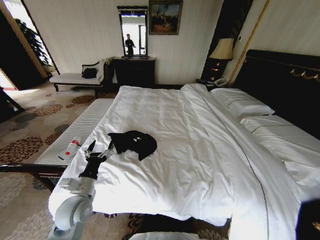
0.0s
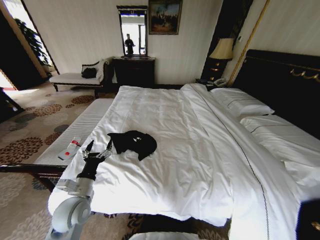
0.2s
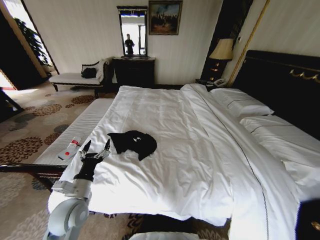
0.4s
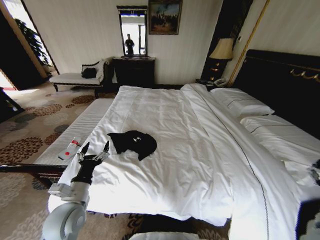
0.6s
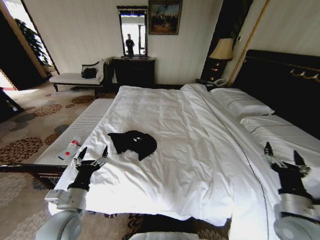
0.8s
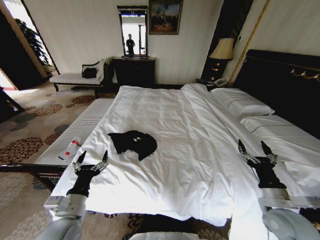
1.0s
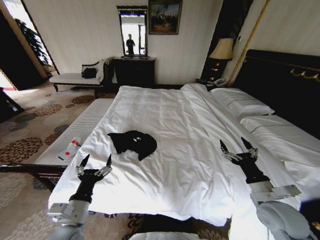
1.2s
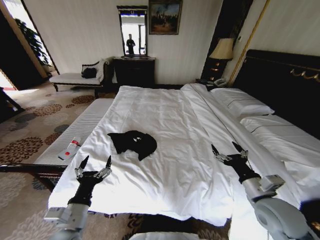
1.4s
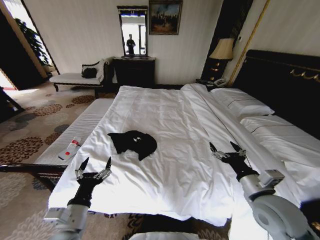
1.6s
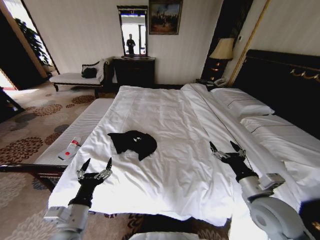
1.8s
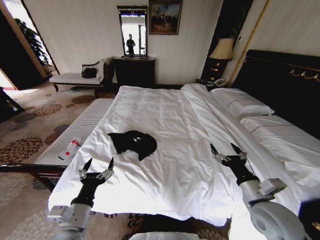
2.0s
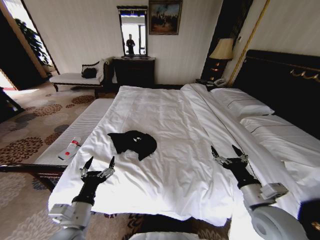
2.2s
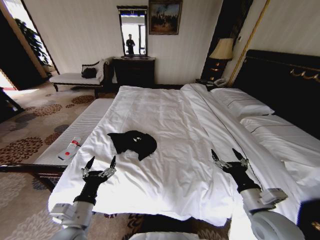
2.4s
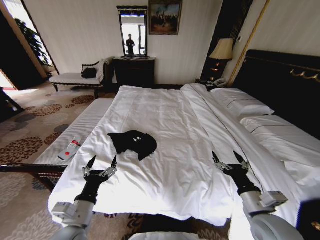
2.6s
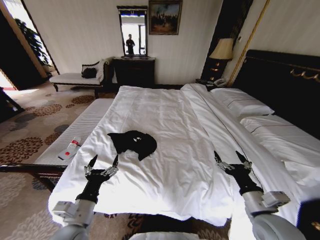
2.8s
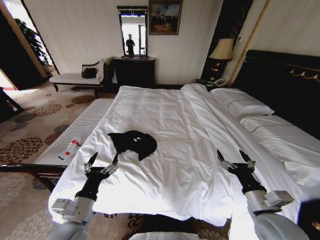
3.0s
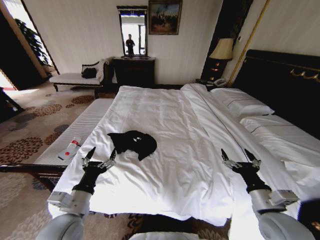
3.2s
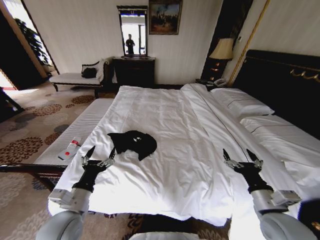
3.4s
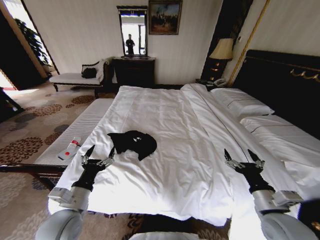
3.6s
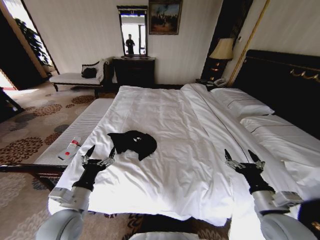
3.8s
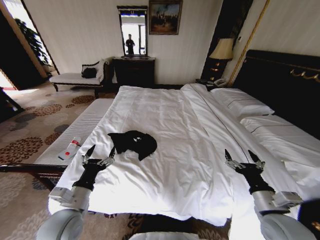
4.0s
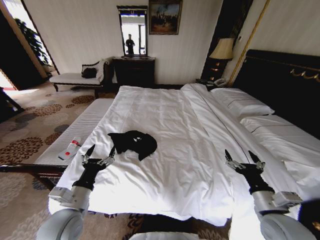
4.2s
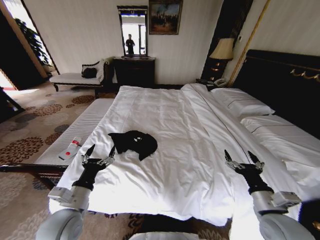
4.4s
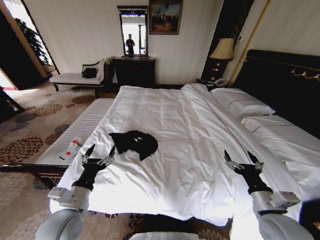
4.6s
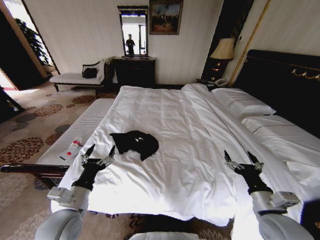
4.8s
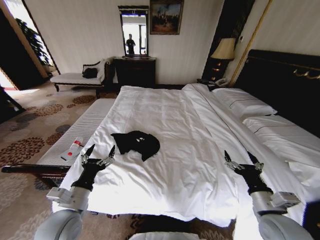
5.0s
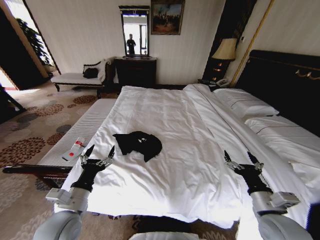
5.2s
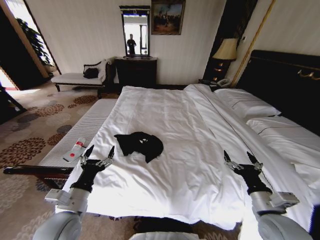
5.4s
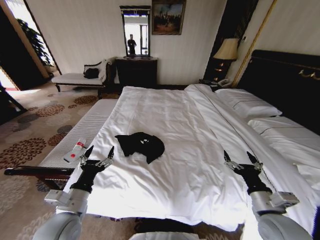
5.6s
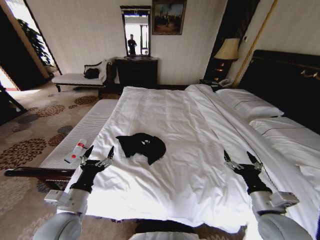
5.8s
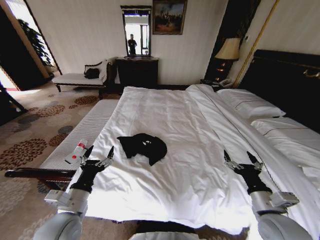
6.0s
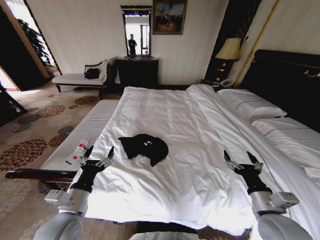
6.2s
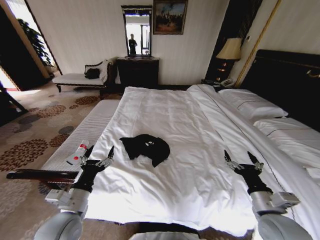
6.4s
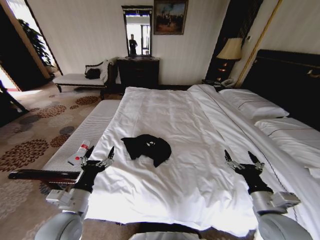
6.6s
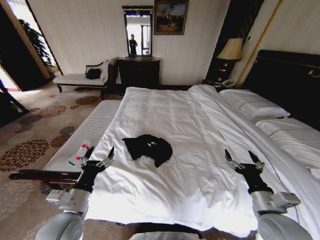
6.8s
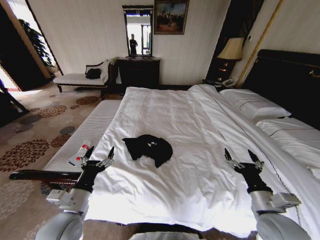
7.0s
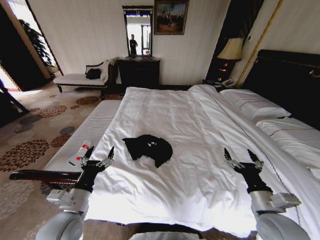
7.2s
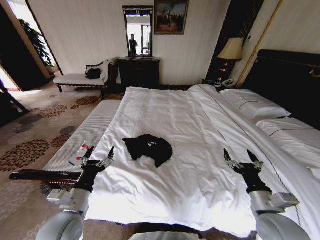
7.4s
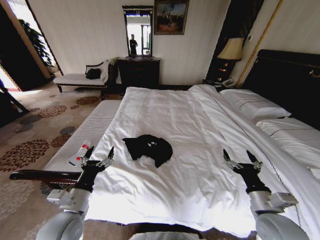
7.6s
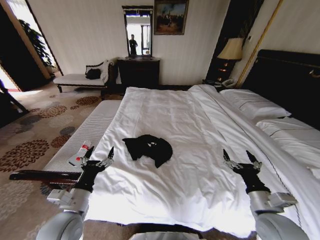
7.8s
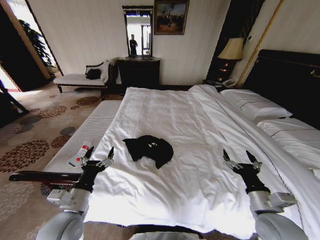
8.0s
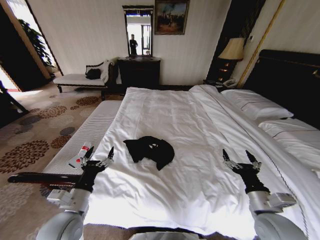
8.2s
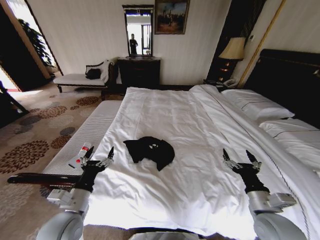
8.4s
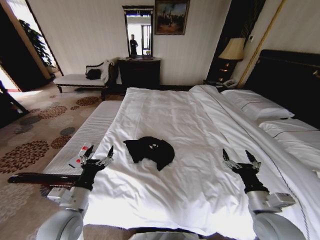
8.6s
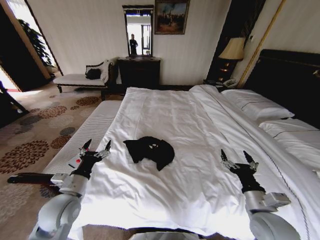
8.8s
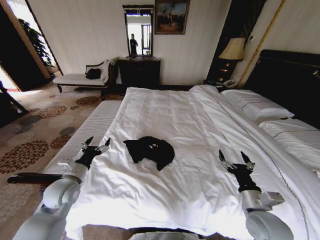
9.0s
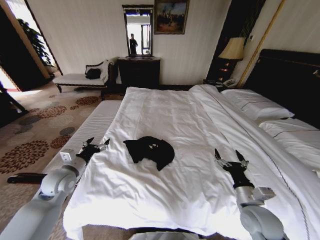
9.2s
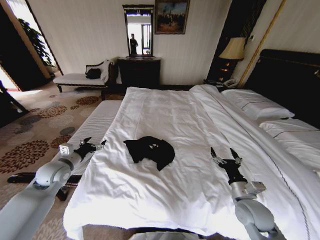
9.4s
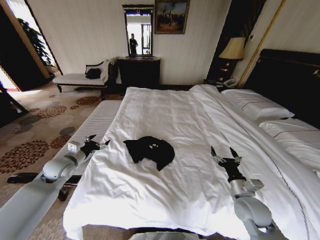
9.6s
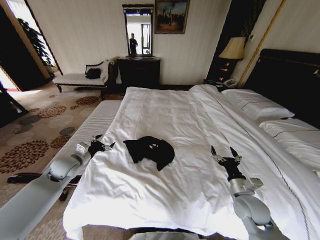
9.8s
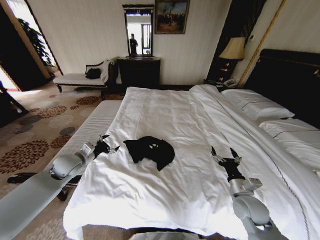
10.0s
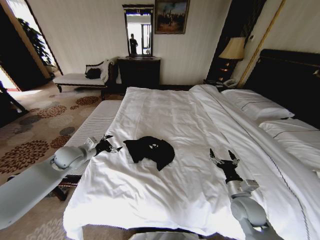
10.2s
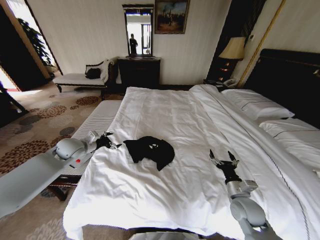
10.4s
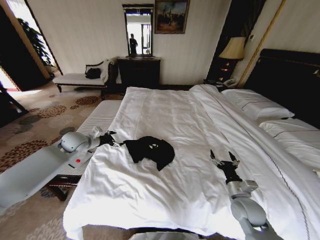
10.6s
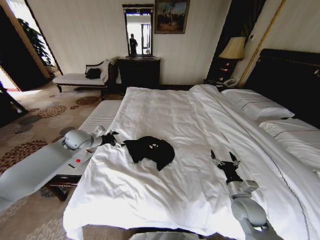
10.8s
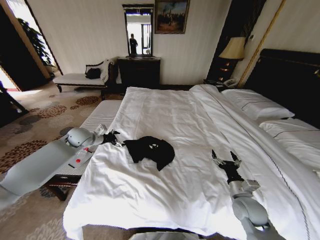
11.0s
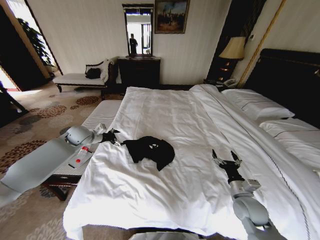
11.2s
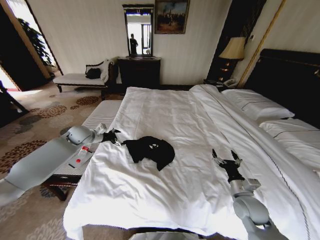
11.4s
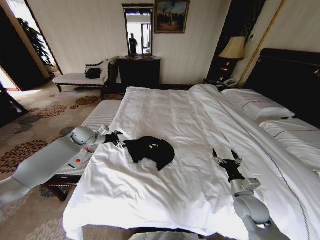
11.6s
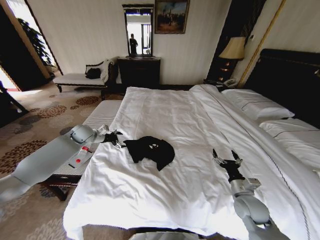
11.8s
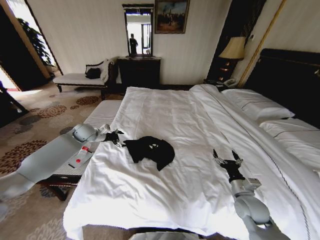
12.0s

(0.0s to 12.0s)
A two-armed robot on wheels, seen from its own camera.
Task of the whole recording: Fold the clothes on the bed.
0.0s - 1.6s: The left gripper travels backward by approximately 10 cm, while the right gripper goes up and down, some 20 cm each way, reversing 2 times, and opens up.
1.6s - 3.0s: The right gripper ends up about 5 cm from where it was.
3.0s - 4.4s: There are only small adjustments of the grippers.
6.0s - 7.6s: Neither gripper changes place.
7.6s - 9.0s: The left gripper shifts some 10 cm forward and to the left.
9.0s - 10.4s: The right gripper heads forward and downward, covering approximately 10 cm. Meanwhile the left gripper is displaced forward by roughly 15 cm.
10.4s - 12.0s: The left gripper shifts approximately 10 cm forward.

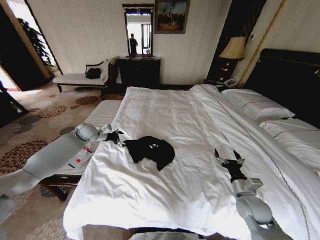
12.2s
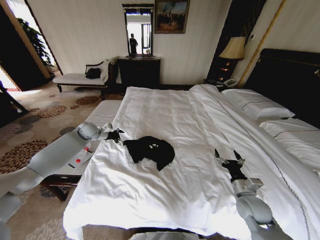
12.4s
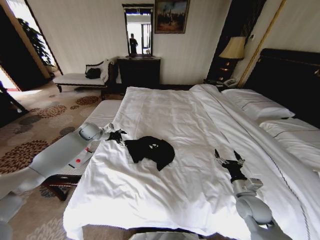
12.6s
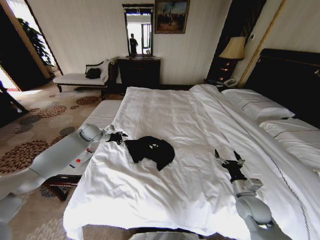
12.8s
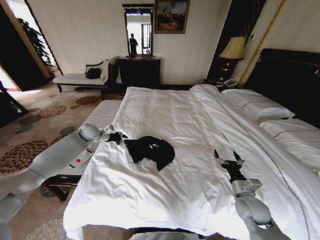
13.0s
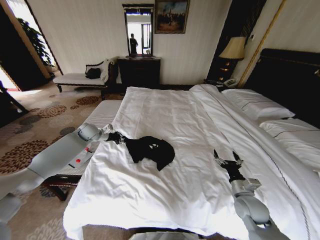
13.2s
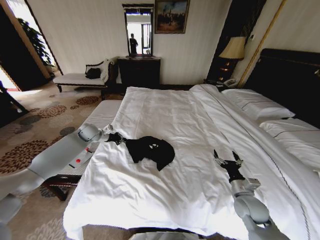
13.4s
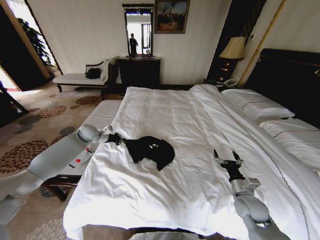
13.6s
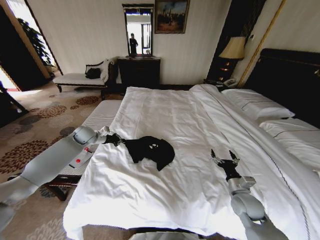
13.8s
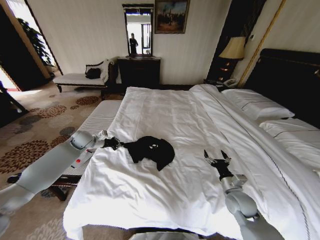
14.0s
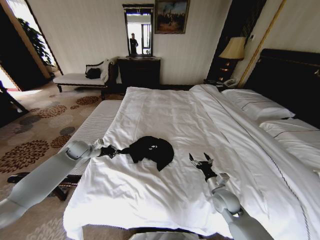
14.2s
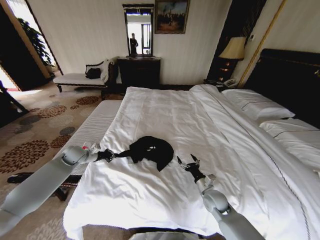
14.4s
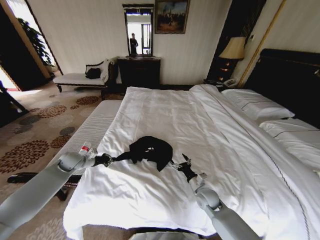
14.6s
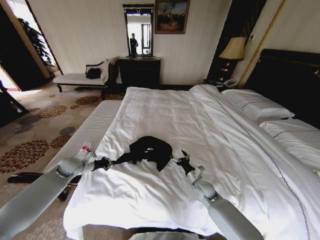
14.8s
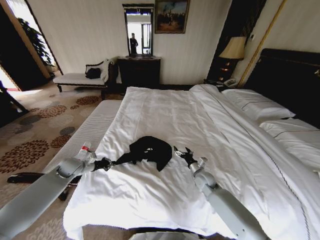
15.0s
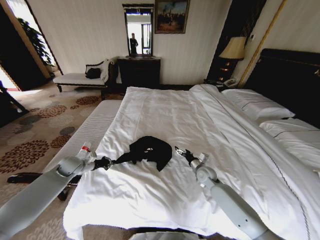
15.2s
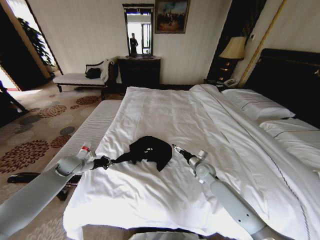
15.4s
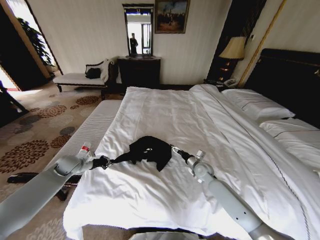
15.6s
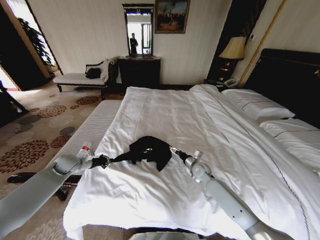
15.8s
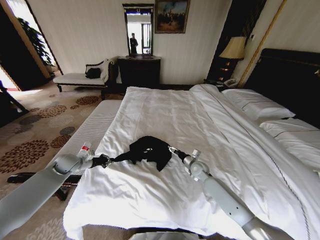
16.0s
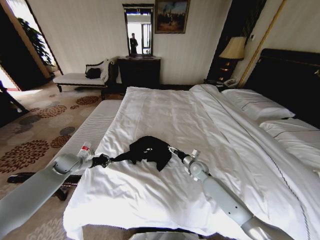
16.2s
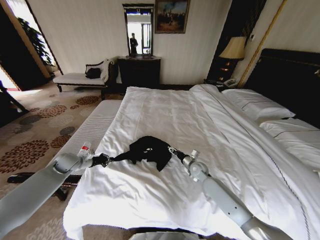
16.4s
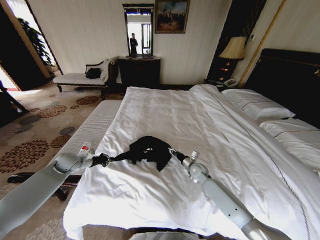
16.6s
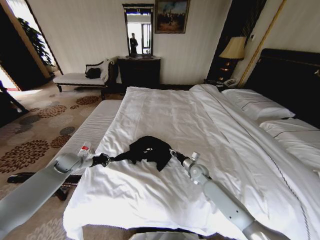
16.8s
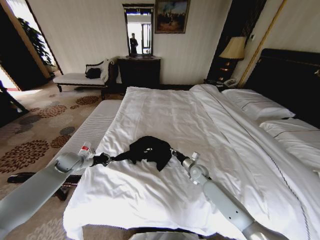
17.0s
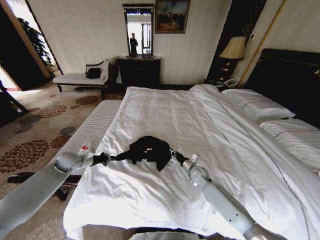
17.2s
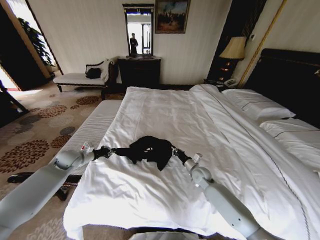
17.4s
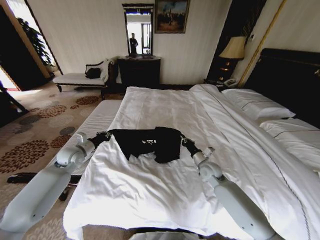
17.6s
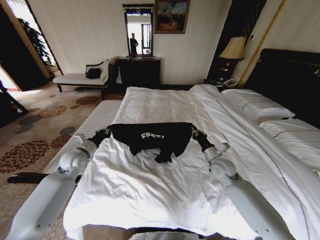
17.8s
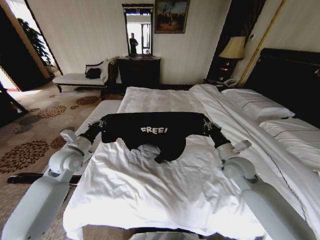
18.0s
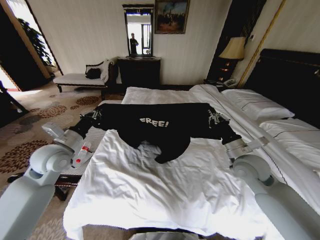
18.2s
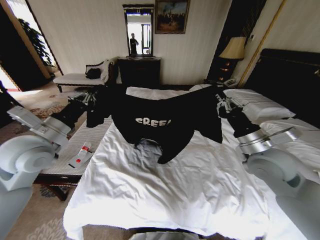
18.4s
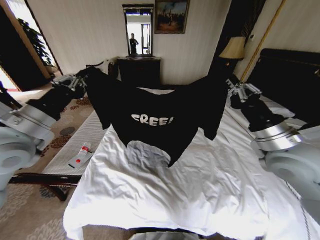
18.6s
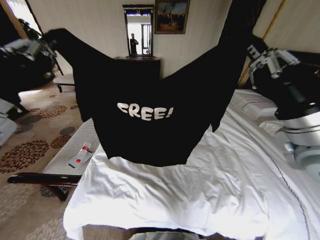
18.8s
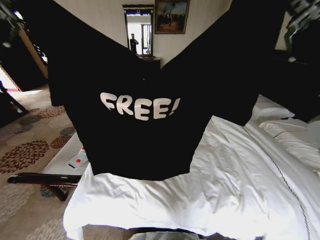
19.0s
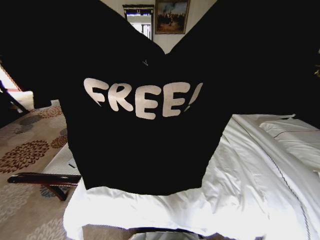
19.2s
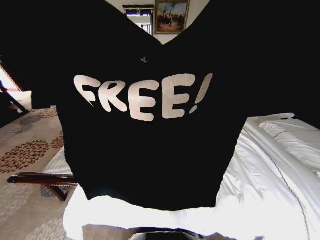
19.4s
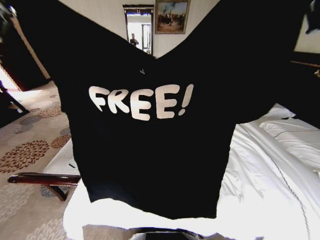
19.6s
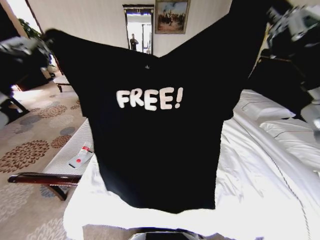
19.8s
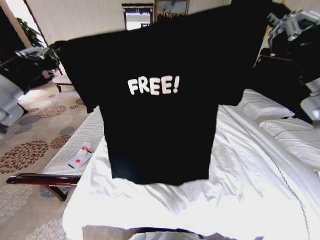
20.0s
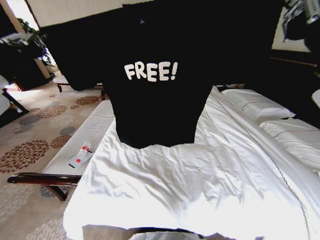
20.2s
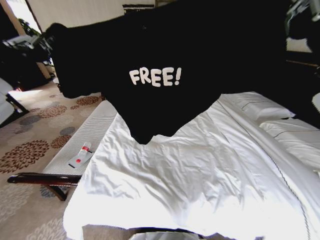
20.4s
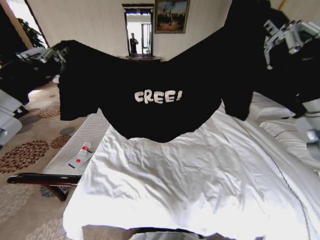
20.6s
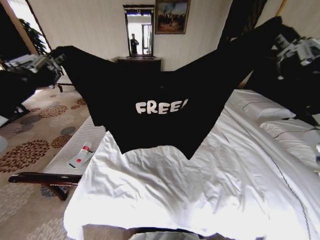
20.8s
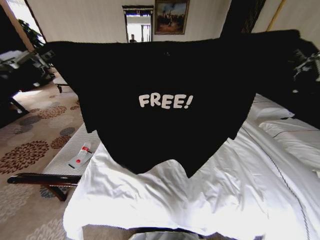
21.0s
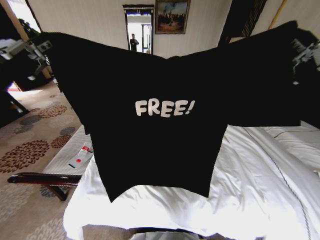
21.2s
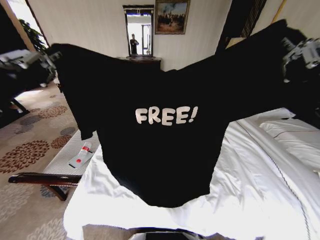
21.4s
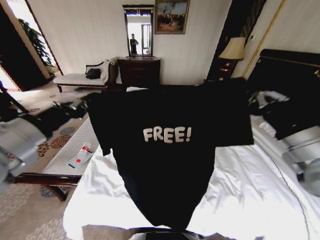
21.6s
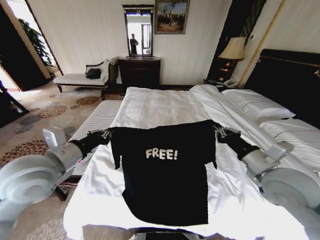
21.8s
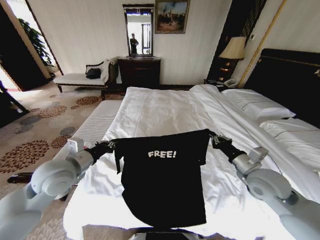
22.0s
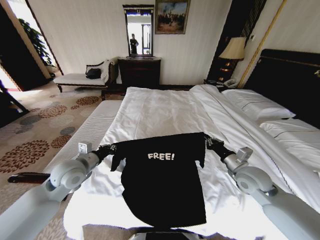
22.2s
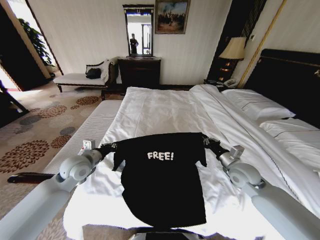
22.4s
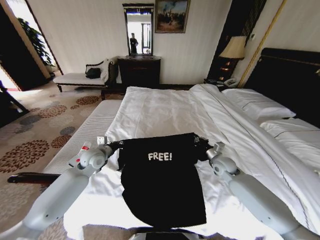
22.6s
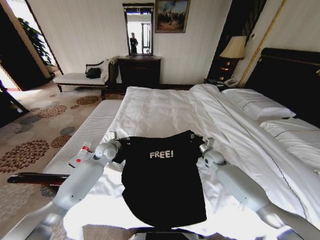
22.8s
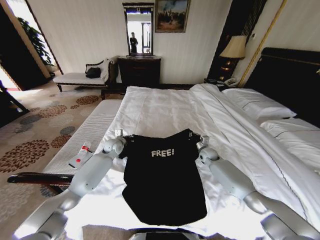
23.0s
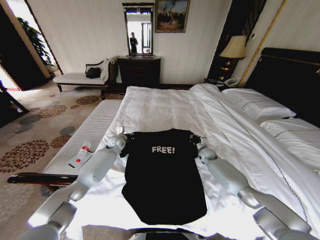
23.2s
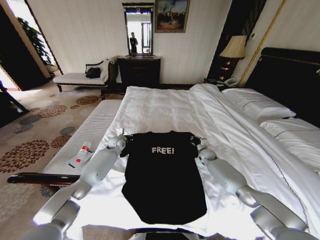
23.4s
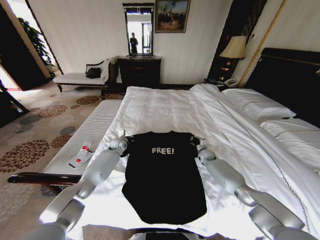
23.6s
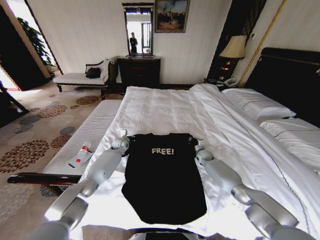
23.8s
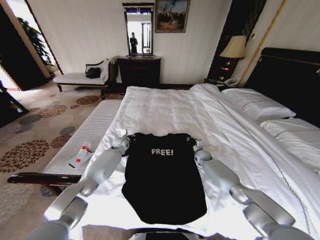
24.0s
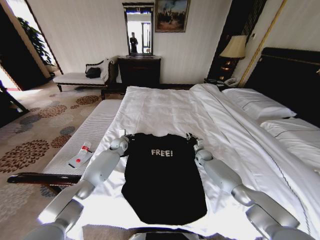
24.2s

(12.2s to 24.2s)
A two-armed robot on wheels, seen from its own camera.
Task of the whole recording: Fold the clothes on the bed.
12.2s - 13.8s: The left gripper closes up.
13.8s - 15.2s: The right gripper goes approximately 20 cm forward and to the left. Meanwhile the left gripper goes about 15 cm backward, downward and to the left.
15.2s - 16.6s: The right gripper closes up.
16.6s - 18.2s: The left gripper travels upward, backward and to the right by some 20 cm. The right gripper moves upward and backward, approximately 25 cm, and closes up.
18.2s - 19.8s: The right gripper goes about 25 cm upward; the left gripper shifts some 25 cm upward and backward.
19.8s - 21.2s: The left gripper travels backward by some 5 cm. Meanwhile the right gripper shifts by roughly 5 cm.
21.2s - 22.6s: Both grippers travel together downward and forward, some 40 cm.
22.6s - 24.2s: The two grippers go roughly 20 cm forward and downward.
